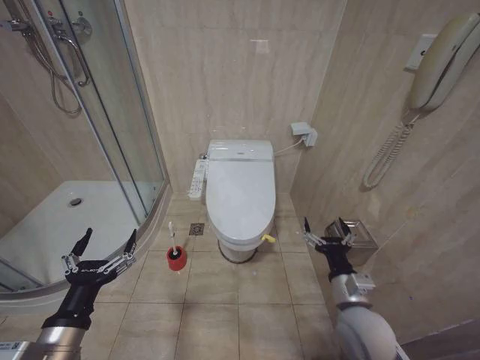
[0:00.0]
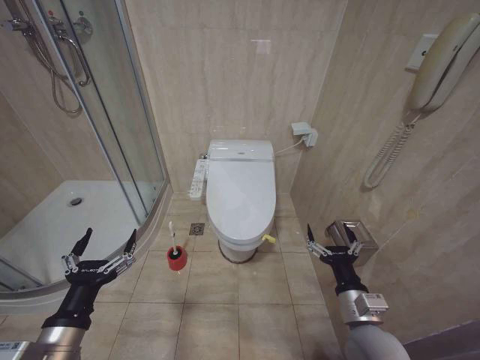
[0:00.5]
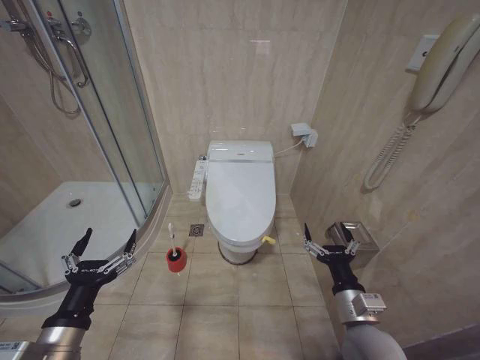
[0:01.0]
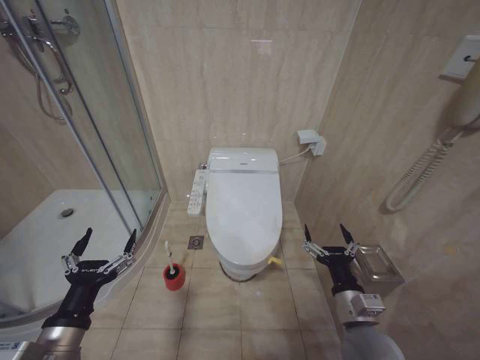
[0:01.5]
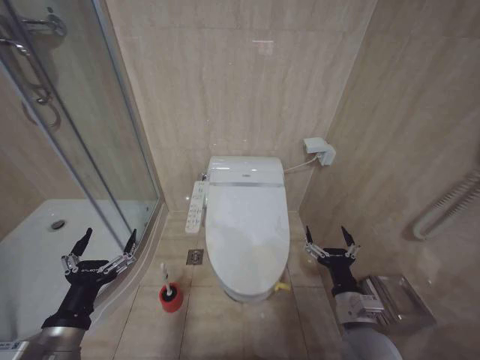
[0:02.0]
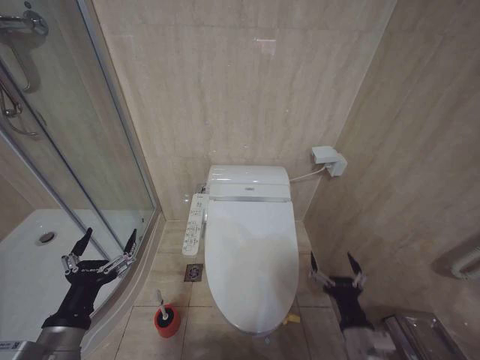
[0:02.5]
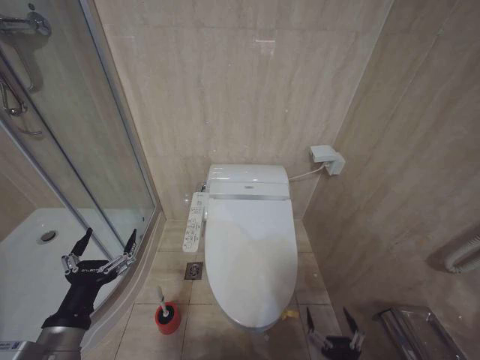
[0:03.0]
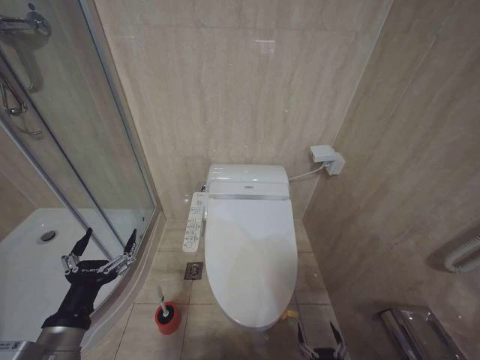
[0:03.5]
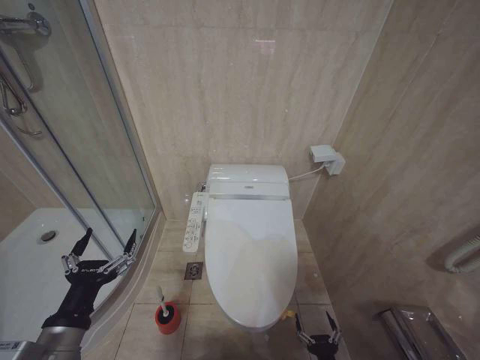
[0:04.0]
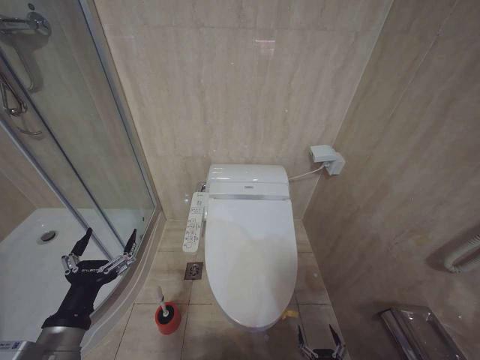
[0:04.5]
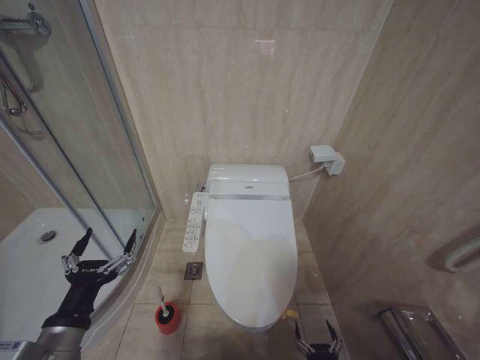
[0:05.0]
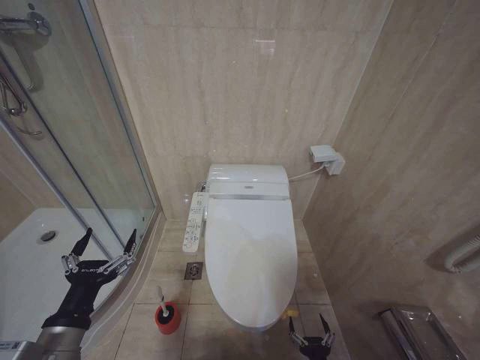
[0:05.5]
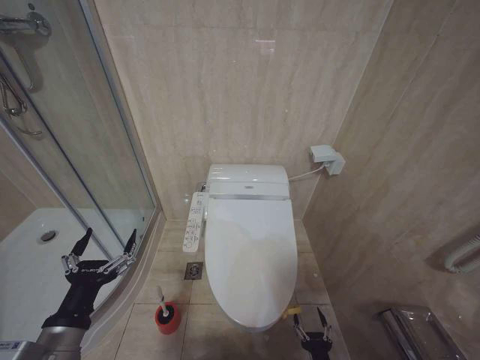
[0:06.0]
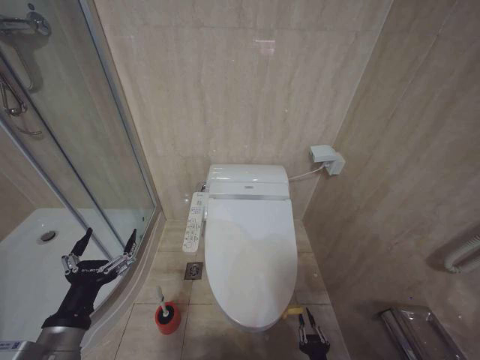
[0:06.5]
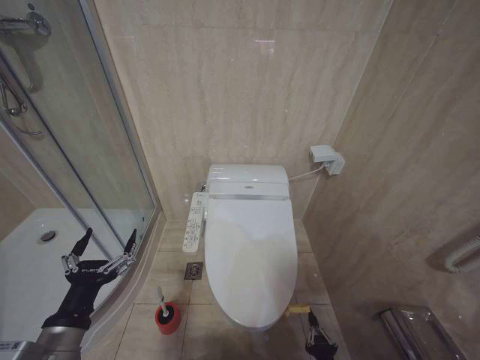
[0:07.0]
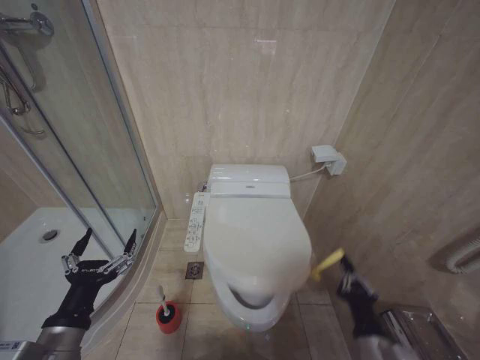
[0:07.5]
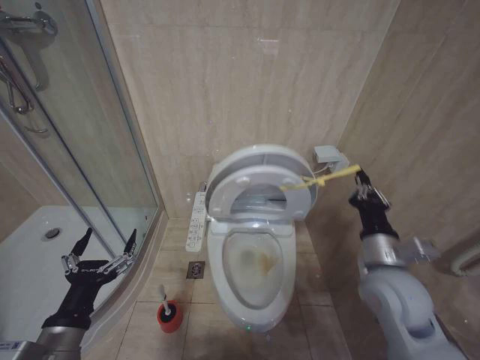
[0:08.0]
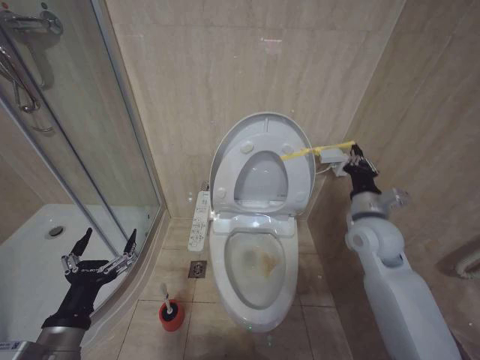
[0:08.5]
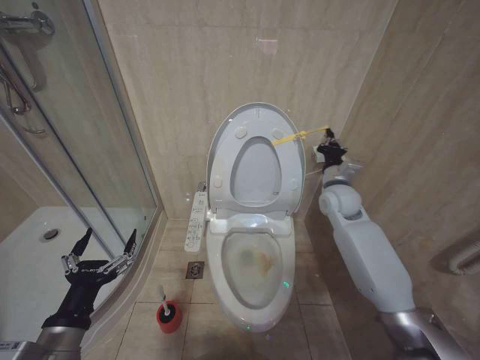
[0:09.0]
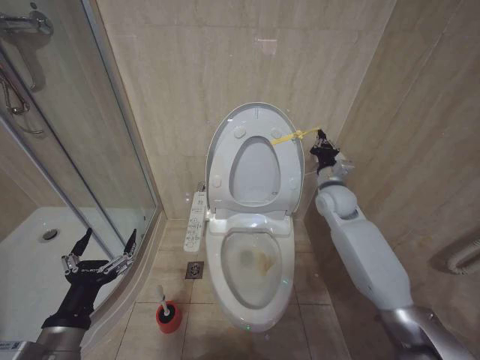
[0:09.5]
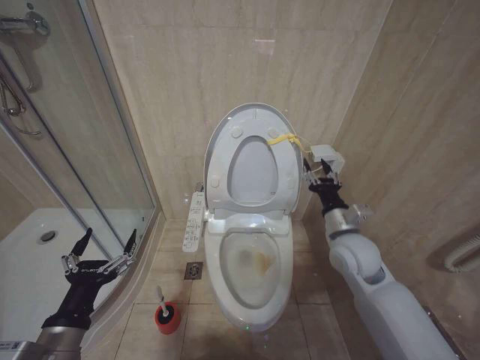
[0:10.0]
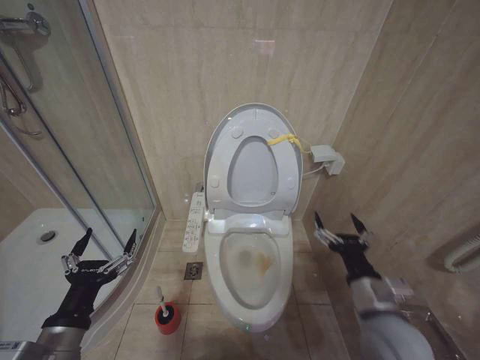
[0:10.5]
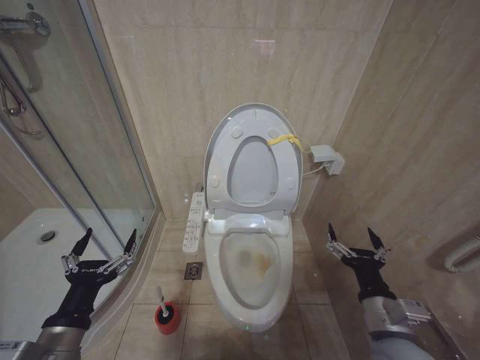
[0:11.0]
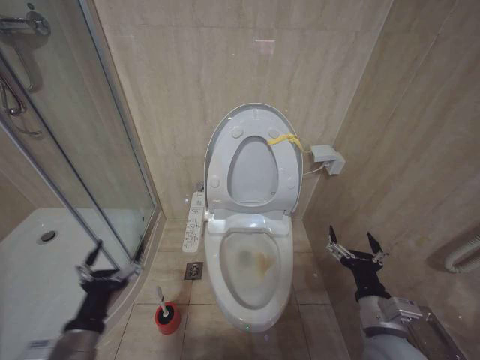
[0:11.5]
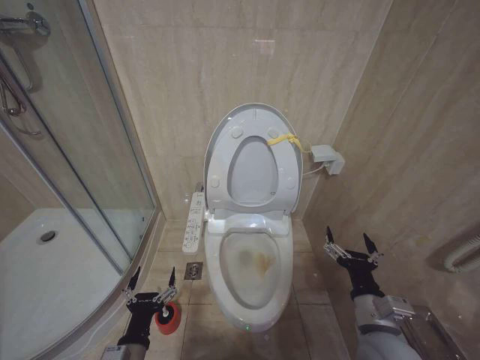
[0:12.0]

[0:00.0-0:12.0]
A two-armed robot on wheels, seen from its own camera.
Task of the whole recording: Open the toilet lid, clean the toilet bowl with a toilet brush, close the toilet lid, and flush.
0:02.0 to 0:04.0: The right gripper shifts about 25 cm downward and backward.
0:06.0 to 0:08.0: The right gripper is displaced upward by roughly 35 cm, and closes its fingers.
0:08.0 to 0:10.0: The right gripper travels forward by approximately 10 cm, and opens.
0:10.0 to 0:12.0: The left gripper shifts approximately 15 cm downward and to the right. The right gripper goes roughly 20 cm backward and downward, and opens.

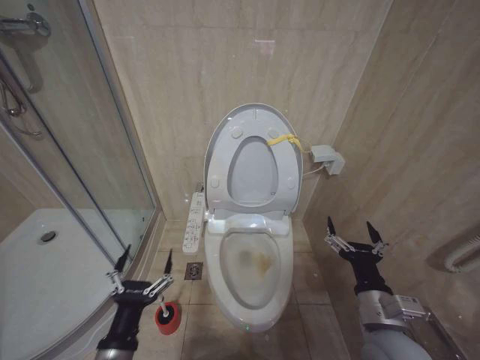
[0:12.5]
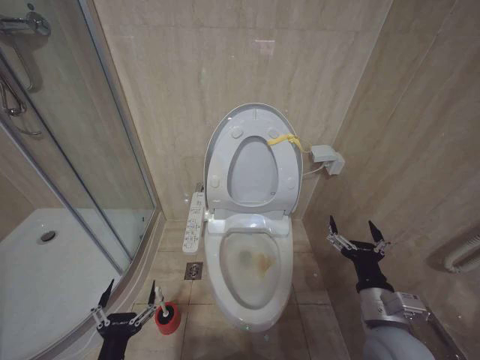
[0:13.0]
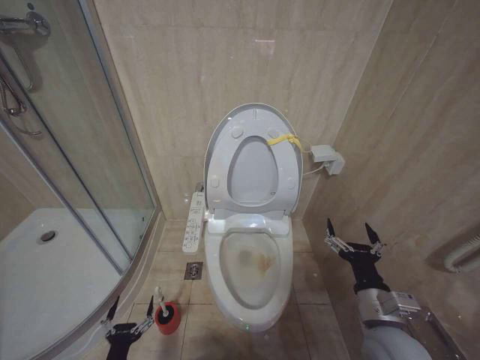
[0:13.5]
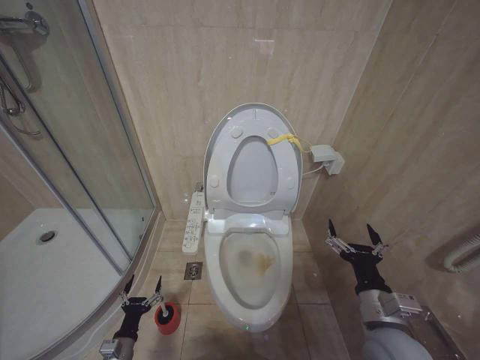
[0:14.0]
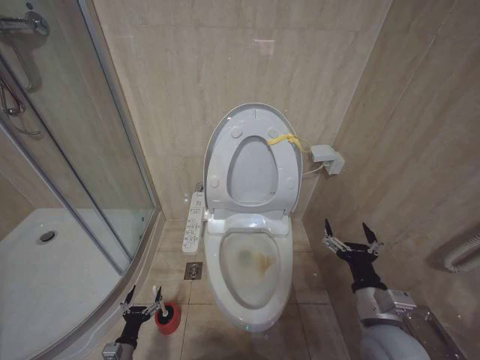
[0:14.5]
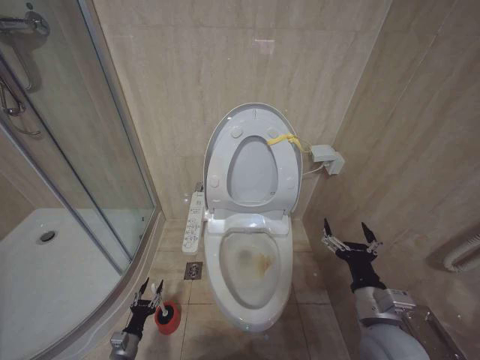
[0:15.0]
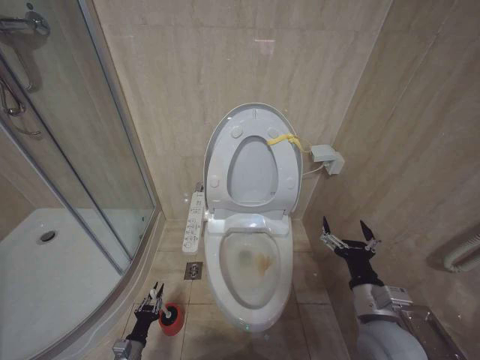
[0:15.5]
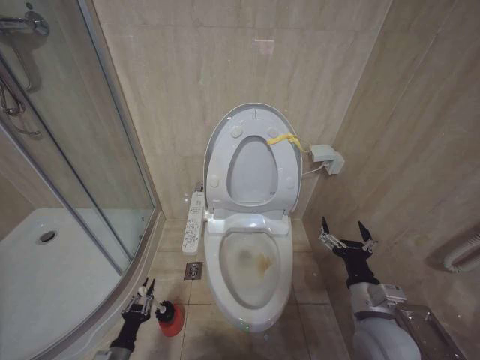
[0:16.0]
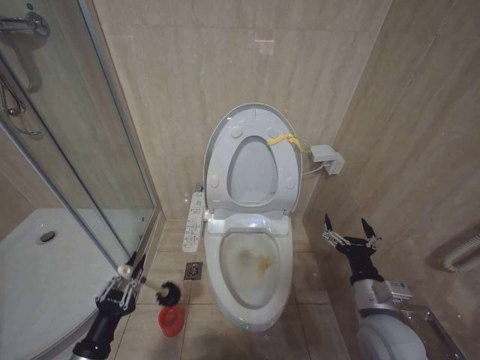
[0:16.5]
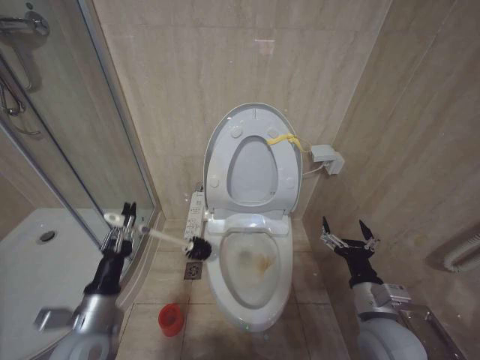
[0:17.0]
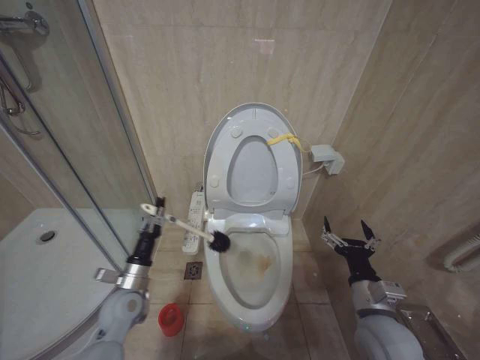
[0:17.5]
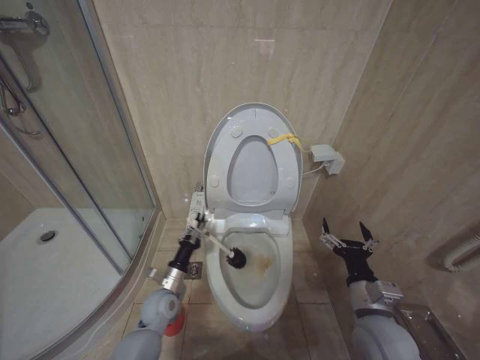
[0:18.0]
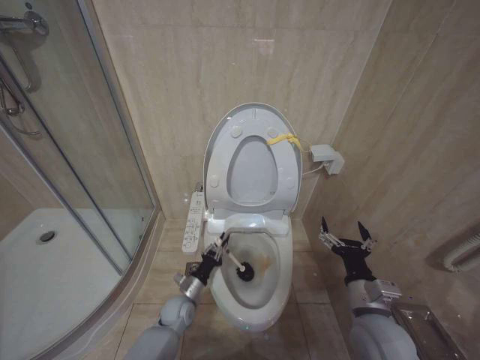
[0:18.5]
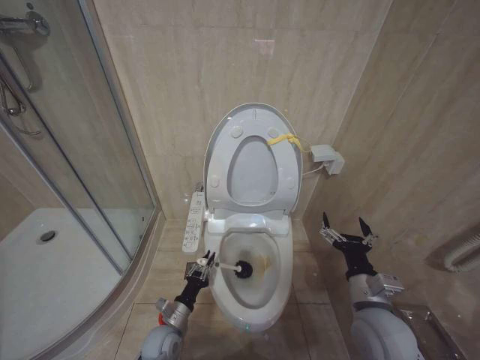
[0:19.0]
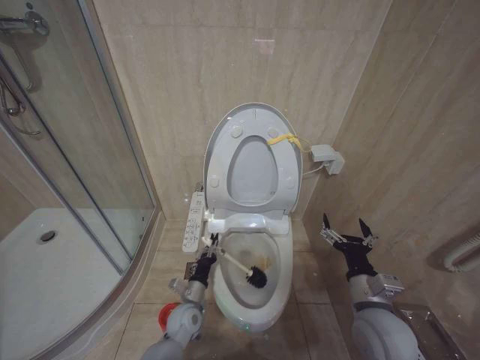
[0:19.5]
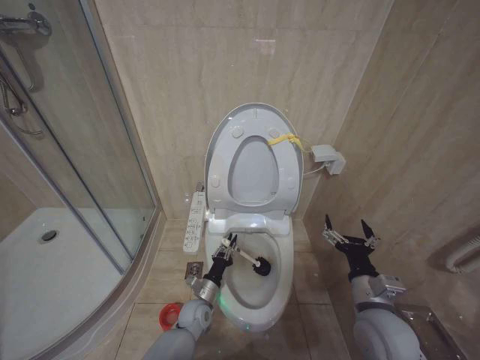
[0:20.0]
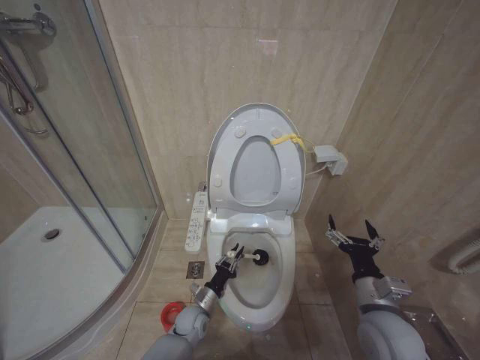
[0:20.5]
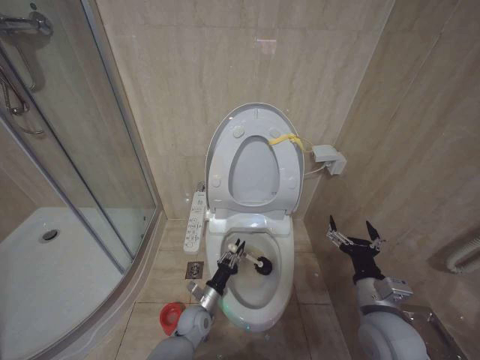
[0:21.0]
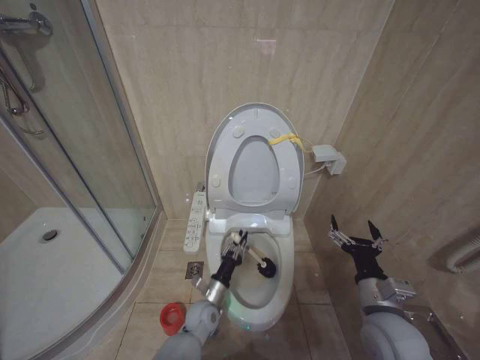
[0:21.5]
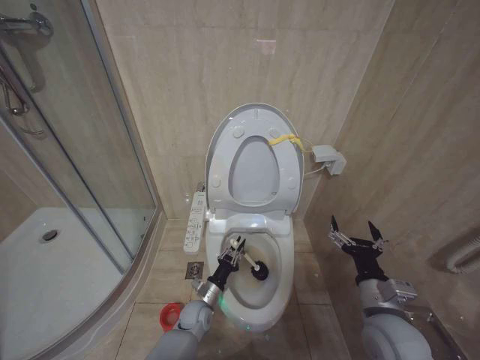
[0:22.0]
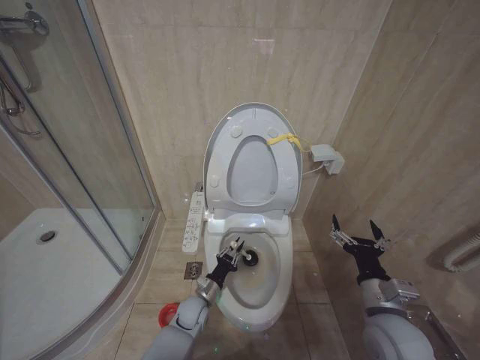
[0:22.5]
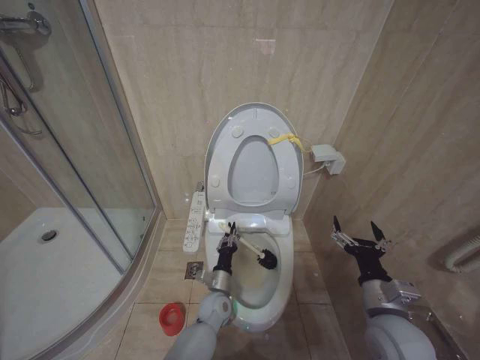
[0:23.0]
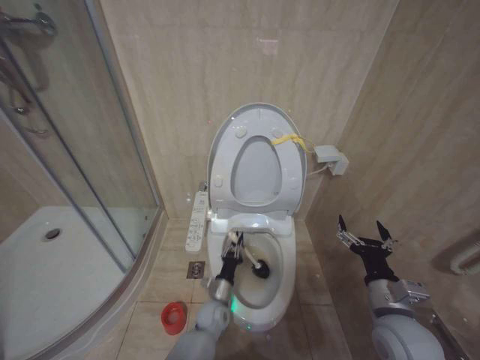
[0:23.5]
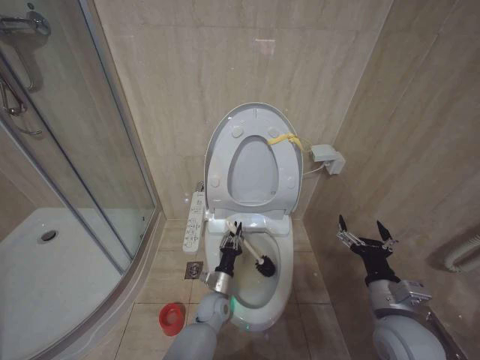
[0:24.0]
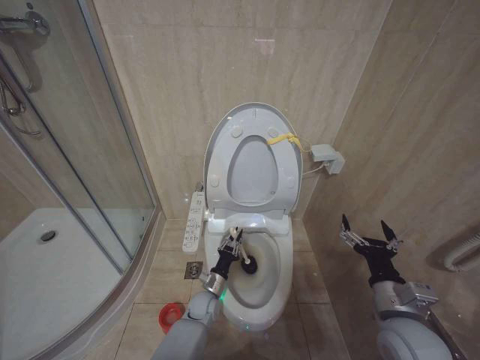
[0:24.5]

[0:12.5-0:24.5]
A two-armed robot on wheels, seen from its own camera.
Task of the whole recording: Open the toilet lid, clean the toilet bowl with a toilet brush, close the toilet lid, and flush.
0:12.5 to 0:14.5: The left gripper goes roughly 30 cm downward and to the left.
0:14.5 to 0:16.5: The left gripper travels upward by about 20 cm, and closes.
0:16.5 to 0:18.5: The left gripper moves forward, to the right and downward, some 30 cm.
0:18.5 to 0:20.5: The left gripper ends up approximately 5 cm from where it was.

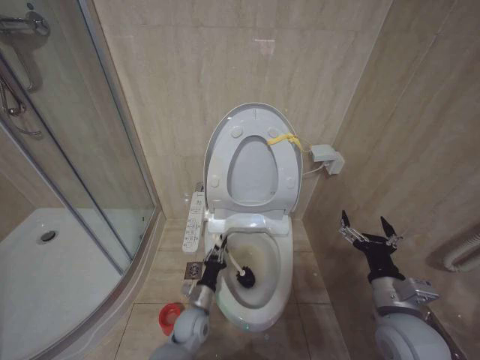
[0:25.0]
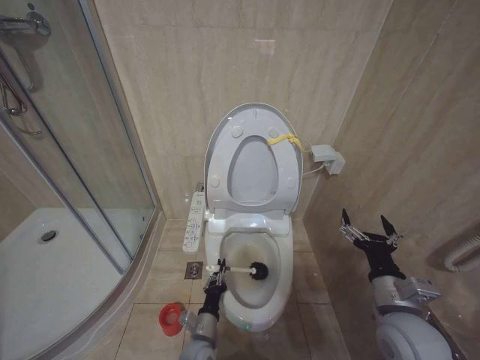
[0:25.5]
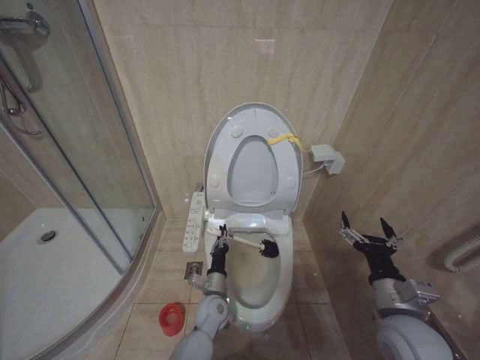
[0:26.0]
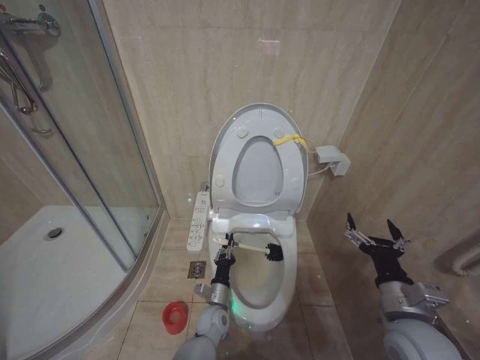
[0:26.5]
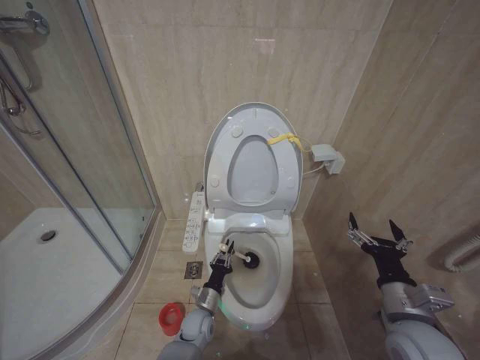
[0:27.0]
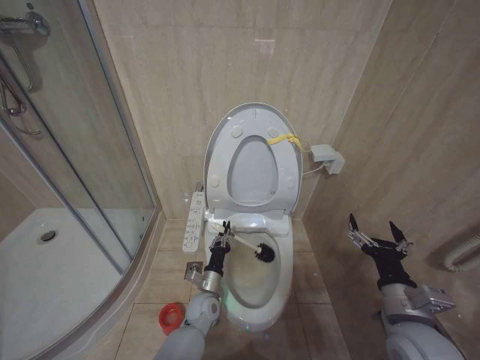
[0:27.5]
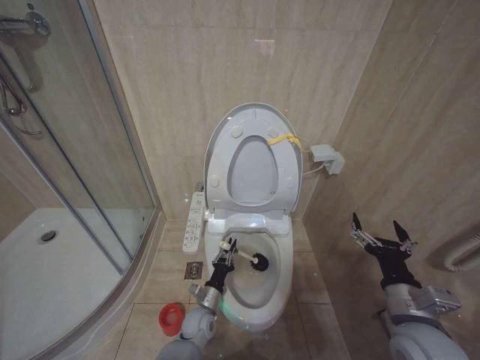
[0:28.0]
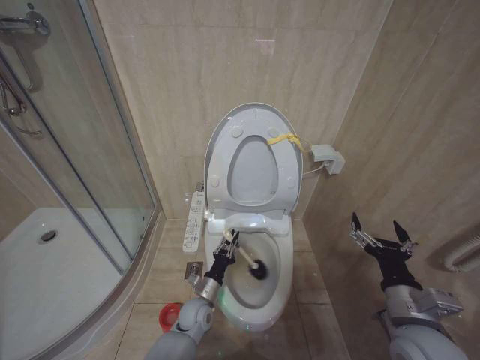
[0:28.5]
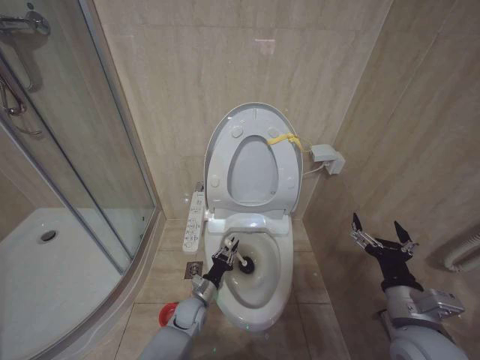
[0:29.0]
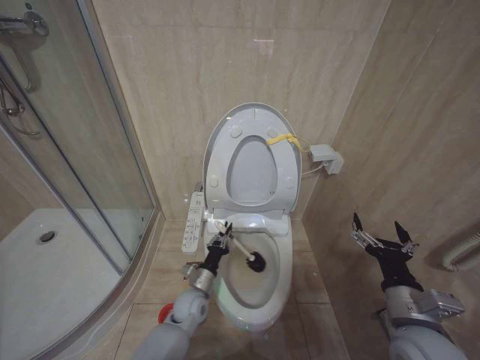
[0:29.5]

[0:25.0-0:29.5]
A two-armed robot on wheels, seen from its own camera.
Task of the whole recording: Open the toilet lid, clean the toilet bowl with a toilet brush, close the toilet lid, and flush.
0:25.0 to 0:27.0: The left gripper reaches approximately 10 cm backward, then returns.
0:27.0 to 0:29.5: The left gripper moves up and down over about 5 cm, changing direction 2 times.
